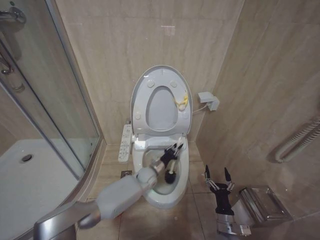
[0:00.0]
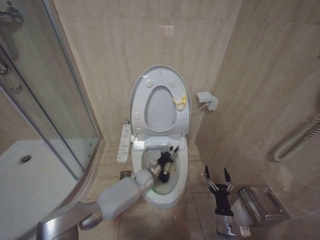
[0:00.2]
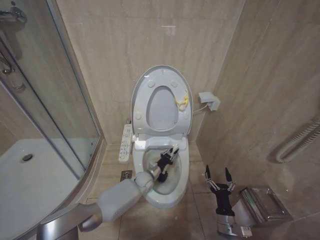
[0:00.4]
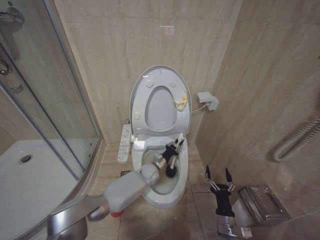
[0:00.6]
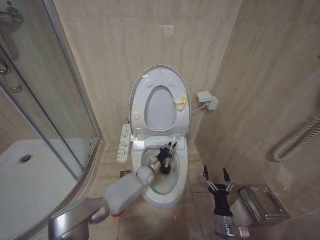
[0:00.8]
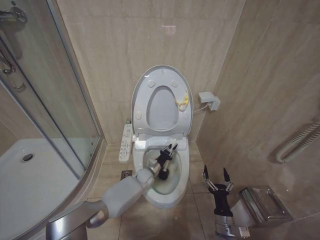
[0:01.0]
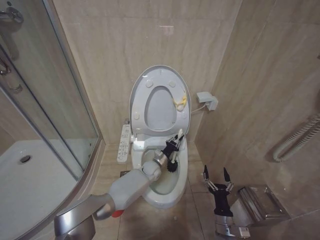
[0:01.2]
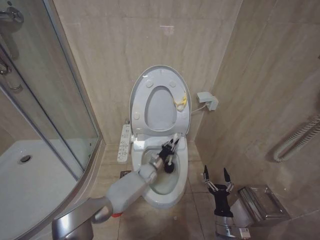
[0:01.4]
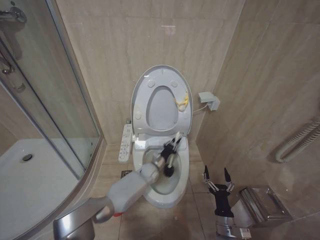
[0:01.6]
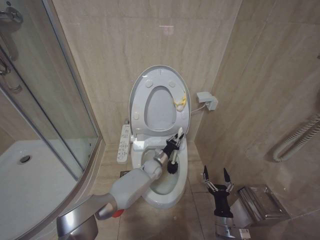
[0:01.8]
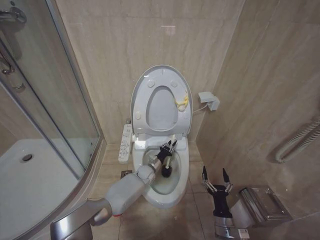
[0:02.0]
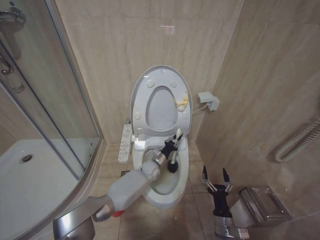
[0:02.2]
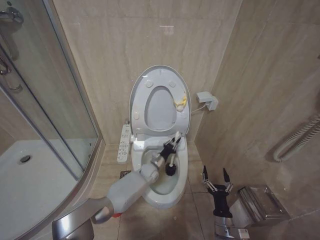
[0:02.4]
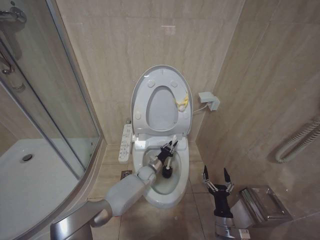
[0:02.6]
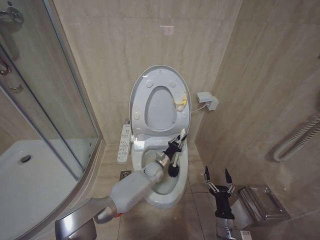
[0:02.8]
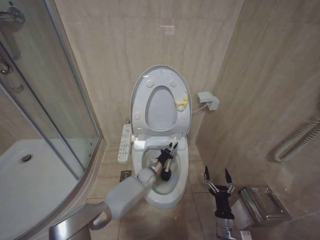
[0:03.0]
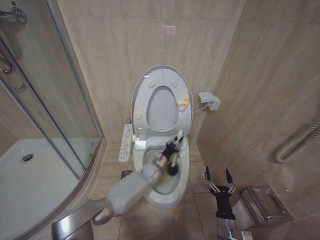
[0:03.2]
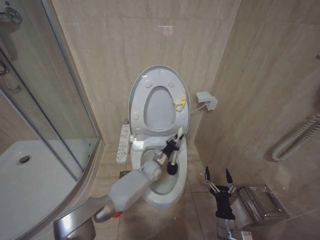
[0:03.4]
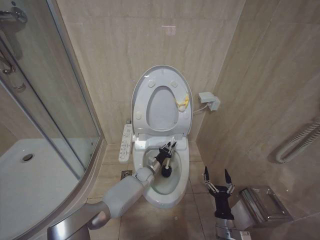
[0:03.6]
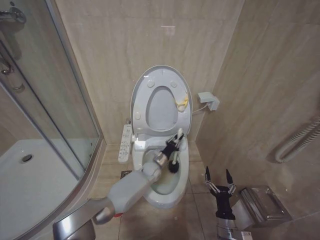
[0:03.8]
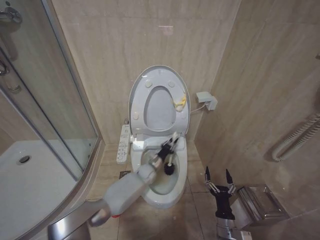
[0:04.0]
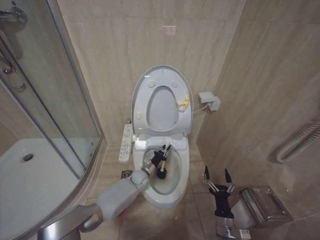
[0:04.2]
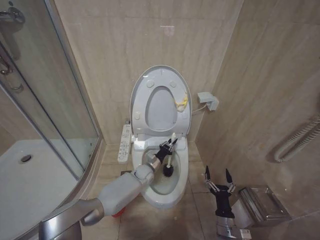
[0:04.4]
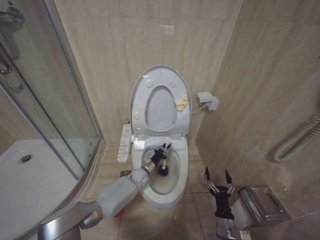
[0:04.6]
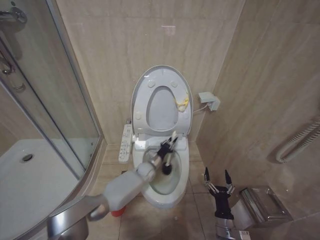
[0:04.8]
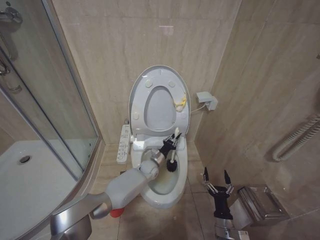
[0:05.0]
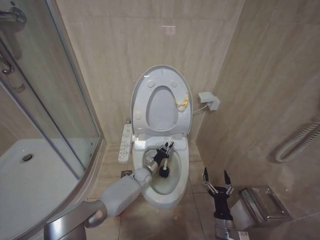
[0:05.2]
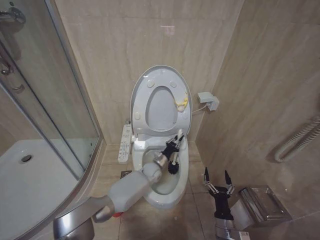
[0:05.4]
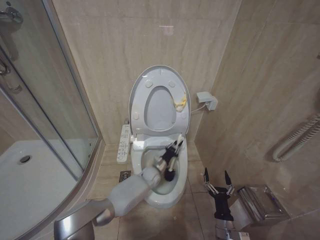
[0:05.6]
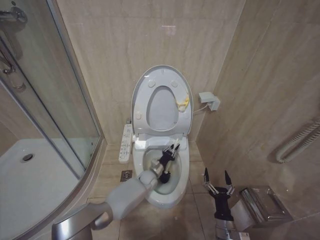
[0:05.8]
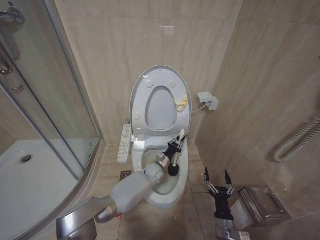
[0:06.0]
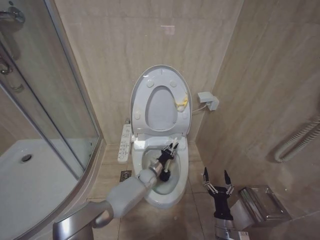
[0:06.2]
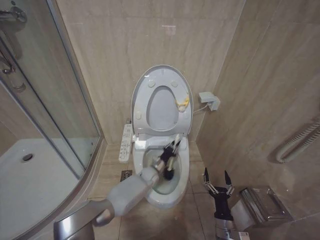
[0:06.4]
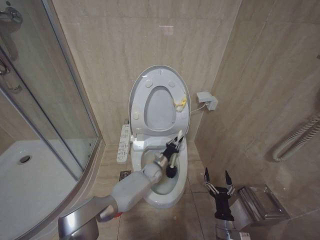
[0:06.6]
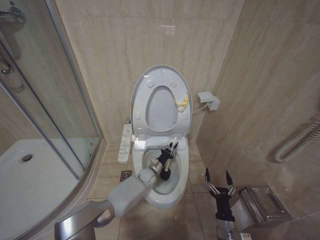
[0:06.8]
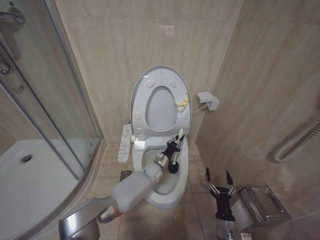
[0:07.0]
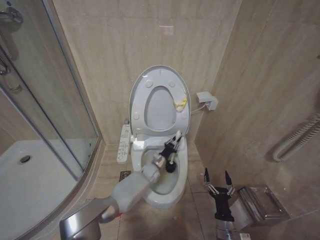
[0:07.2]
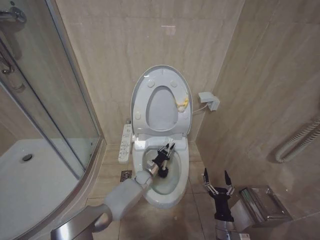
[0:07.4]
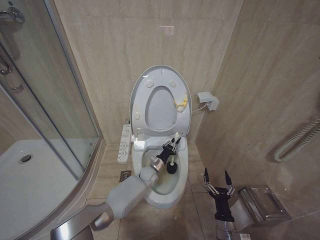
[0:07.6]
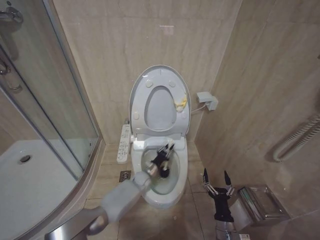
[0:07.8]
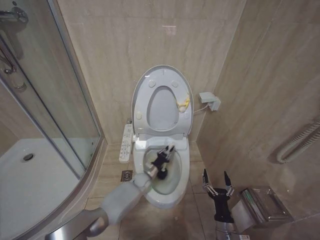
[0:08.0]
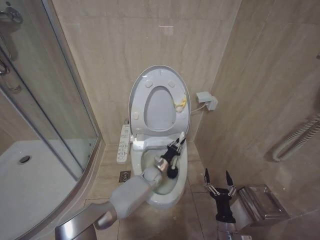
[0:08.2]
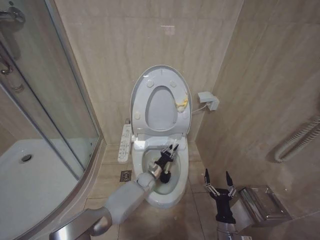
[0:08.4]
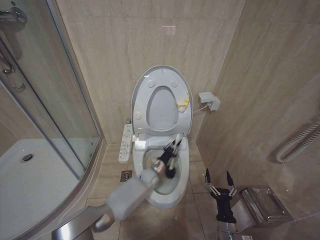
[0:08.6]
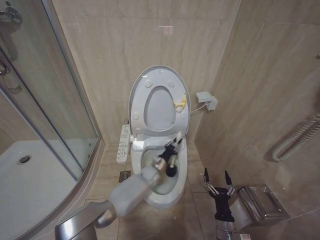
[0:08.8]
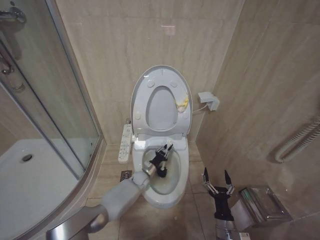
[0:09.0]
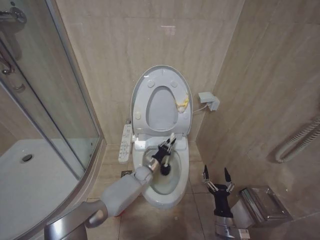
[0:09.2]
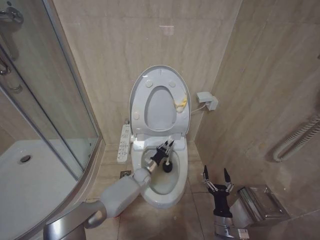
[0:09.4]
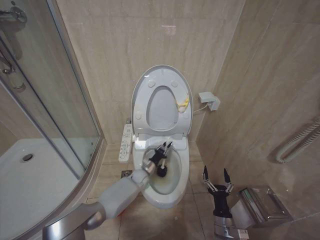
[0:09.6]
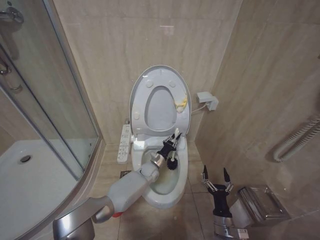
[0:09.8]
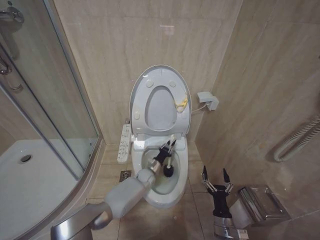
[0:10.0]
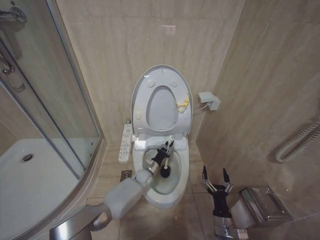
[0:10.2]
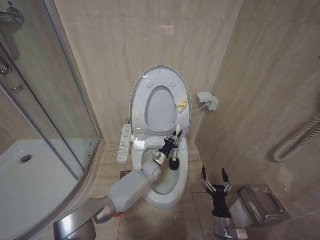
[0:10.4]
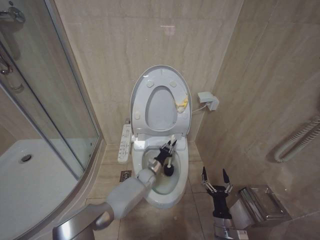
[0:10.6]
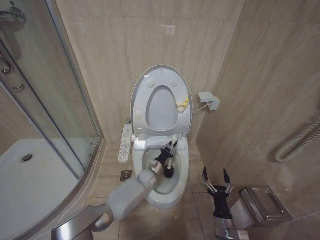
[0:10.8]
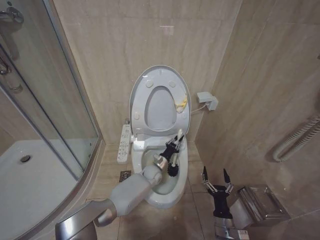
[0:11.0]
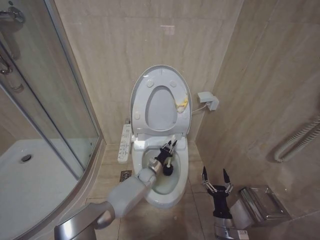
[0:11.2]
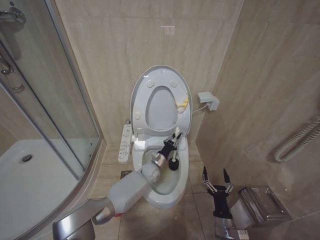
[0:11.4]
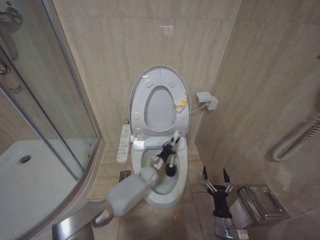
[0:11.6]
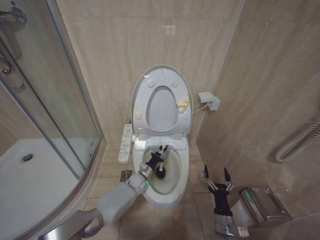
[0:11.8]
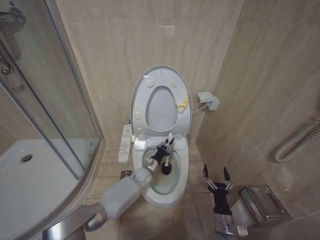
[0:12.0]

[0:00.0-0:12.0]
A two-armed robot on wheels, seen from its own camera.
Task of the whole recording: Open the toilet lid, clean the toilet bowl with a toilet brush, close the toilet lid, and flush.
0:01.6 to 0:03.0: The grippers make only small movements.
0:03.0 to 0:04.4: The grippers move only a little.
0:04.4 to 0:06.0: The left gripper goes roughly 5 cm to the right.
0:07.6 to 0:09.0: The left gripper swings left and right, approximately 5 cm each way, with 2 reversals.
0:09.0 to 0:10.4: The left gripper shifts approximately 5 cm upward.
0:10.4 to 0:12.0: The left gripper goes approximately 5 cm to the left.

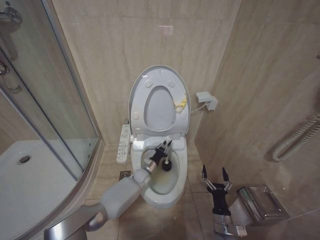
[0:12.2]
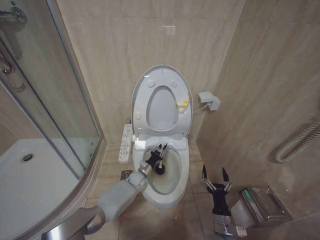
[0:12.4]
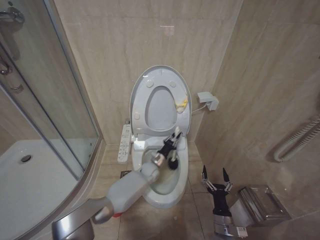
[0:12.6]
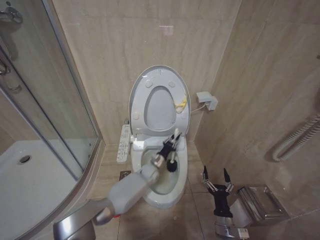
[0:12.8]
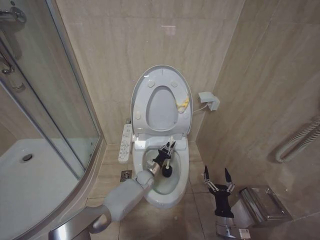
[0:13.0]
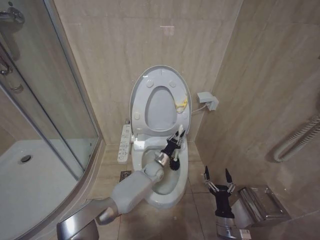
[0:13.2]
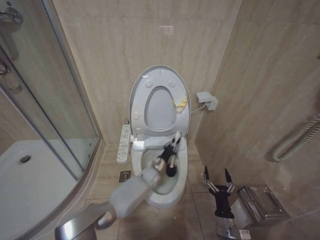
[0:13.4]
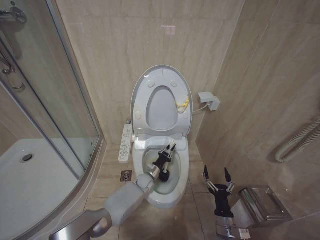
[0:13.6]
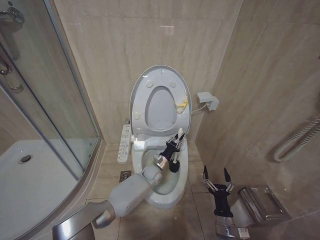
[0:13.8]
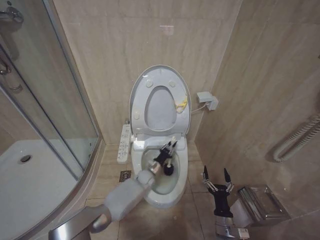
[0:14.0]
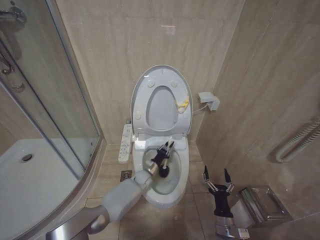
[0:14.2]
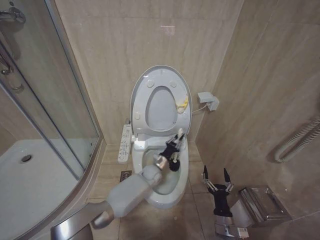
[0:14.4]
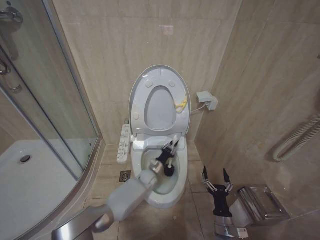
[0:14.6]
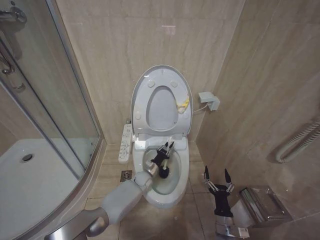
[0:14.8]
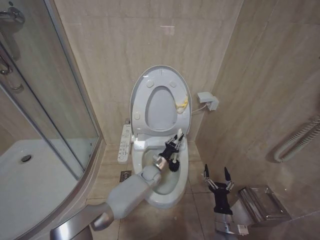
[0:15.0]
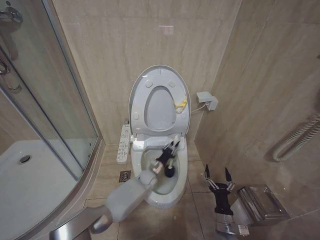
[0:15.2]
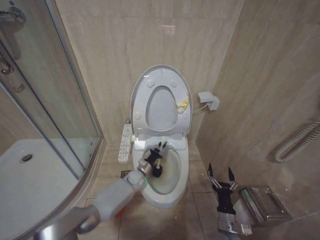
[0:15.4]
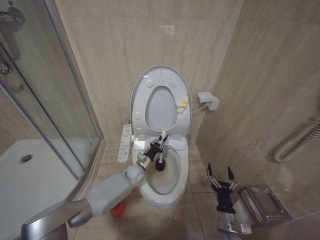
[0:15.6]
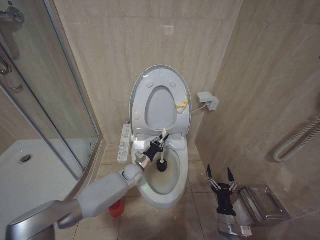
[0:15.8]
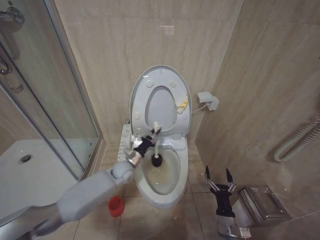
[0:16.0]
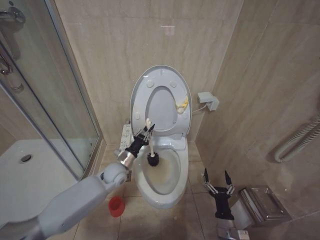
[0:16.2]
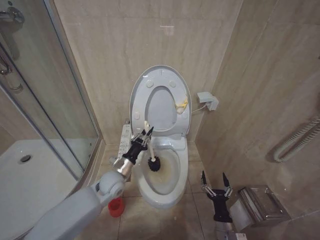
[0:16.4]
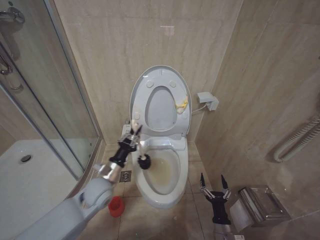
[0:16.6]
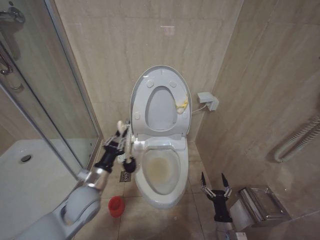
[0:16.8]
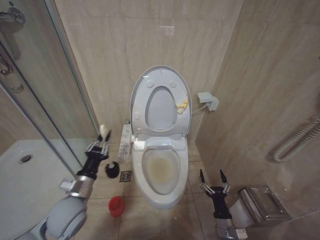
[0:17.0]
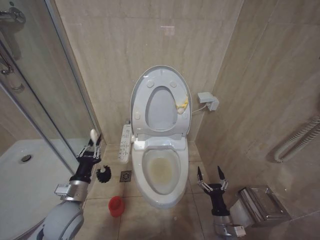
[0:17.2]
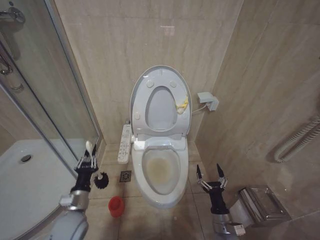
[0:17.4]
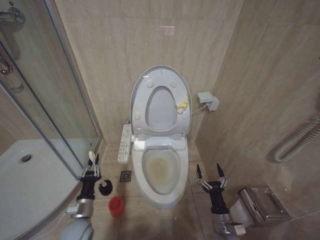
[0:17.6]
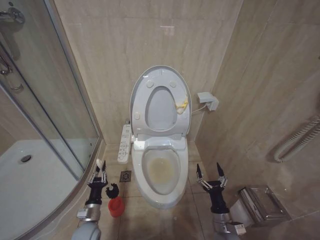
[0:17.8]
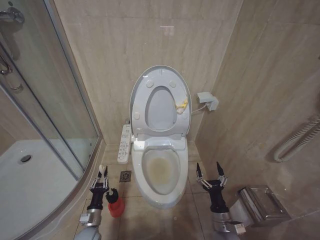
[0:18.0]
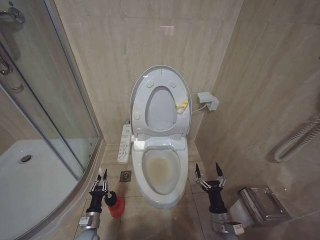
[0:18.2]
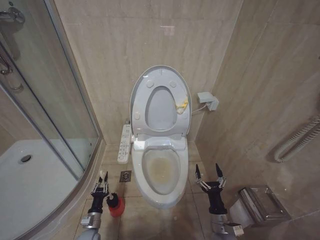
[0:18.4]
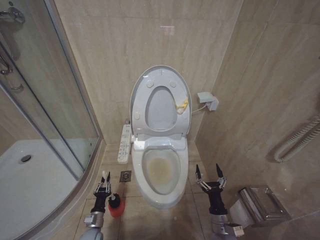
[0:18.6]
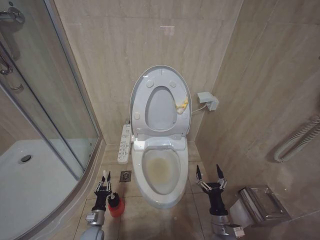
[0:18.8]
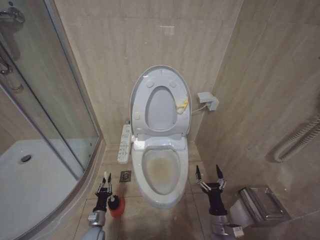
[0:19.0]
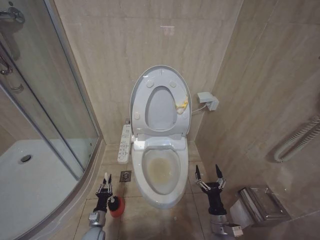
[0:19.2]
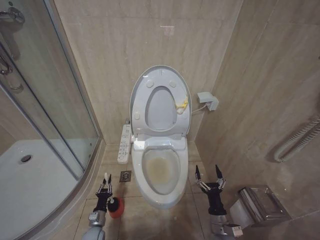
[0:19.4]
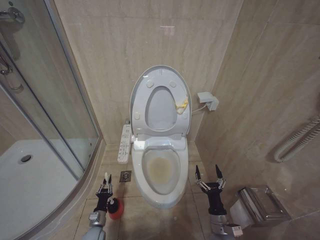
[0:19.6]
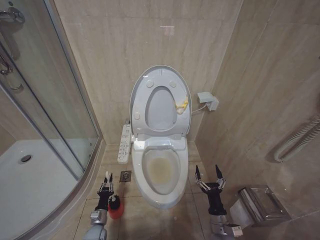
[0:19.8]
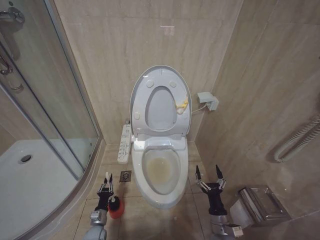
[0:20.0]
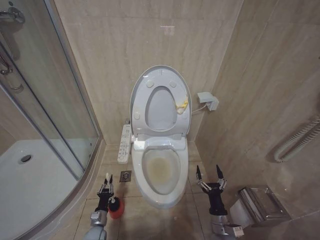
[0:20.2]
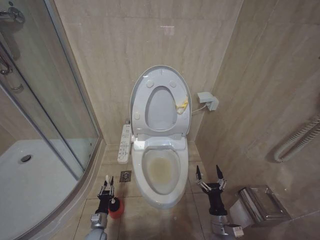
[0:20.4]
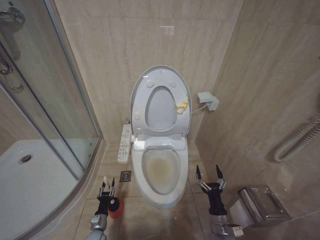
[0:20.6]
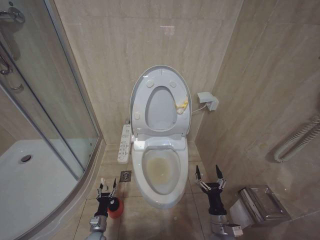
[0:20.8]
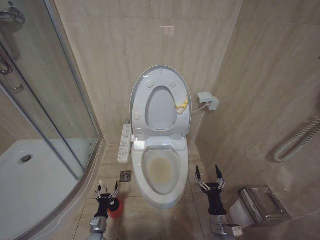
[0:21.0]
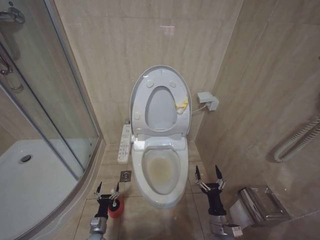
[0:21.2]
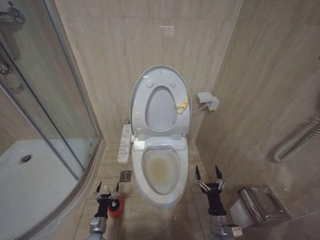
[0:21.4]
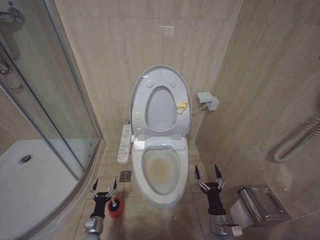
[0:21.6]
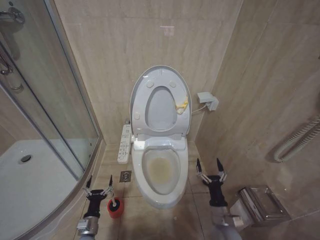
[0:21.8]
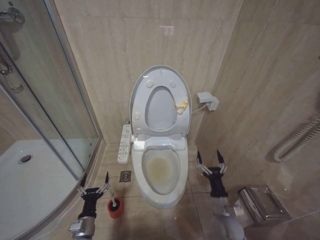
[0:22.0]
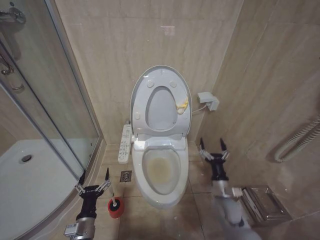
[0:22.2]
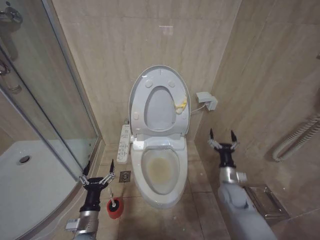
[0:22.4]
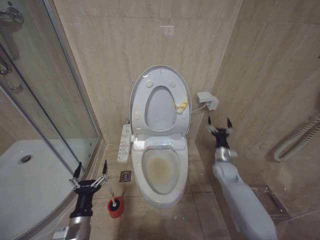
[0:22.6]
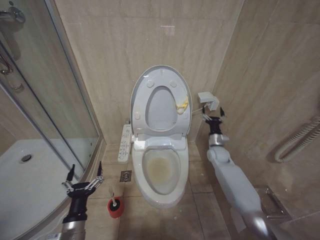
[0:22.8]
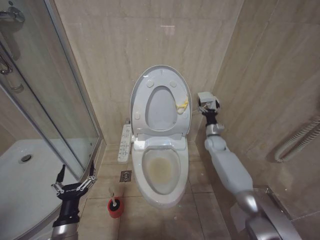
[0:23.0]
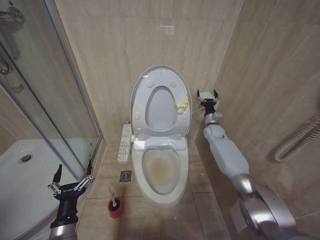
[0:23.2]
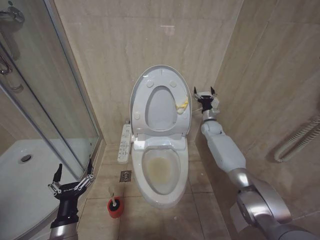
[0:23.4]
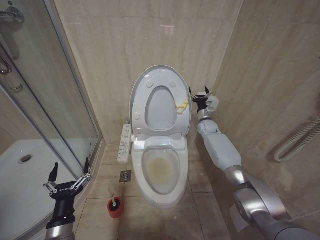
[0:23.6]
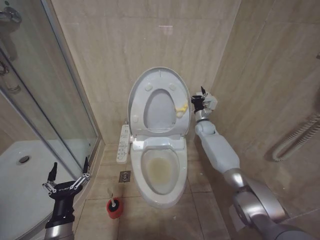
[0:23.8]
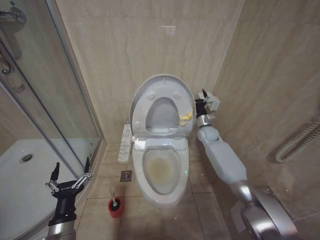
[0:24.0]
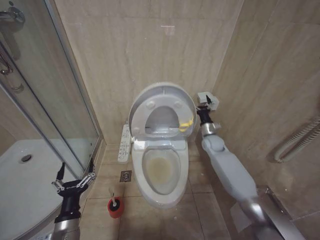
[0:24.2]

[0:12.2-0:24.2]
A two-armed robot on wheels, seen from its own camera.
Task of the whole recording: Open the toilet lid, clean the toilet bowl with a toilet brush, close the toilet lid, and flush.
0:12.2 to 0:13.8: The left gripper goes left and right, about 10 cm each way, reversing 3 times.
0:13.8 to 0:15.2: The grippers stay close to where they were, moving slightly.
0:15.2 to 0:16.6: The left gripper shifts some 25 cm to the left, upward and backward.
0:16.6 to 0:18.2: The left gripper shifts about 25 cm downward and to the left.
0:18.2 to 0:19.8: The left gripper shifts approximately 10 cm downward.
0:19.8 to 0:21.2: The left gripper opens up.
0:21.2 to 0:22.6: The left gripper heads upward, covering approximately 25 cm. Meanwhile the right gripper travels forward, upward and to the right by some 25 cm.
0:22.6 to 0:24.2: The right gripper heads forward and upward, covering approximately 20 cm.
